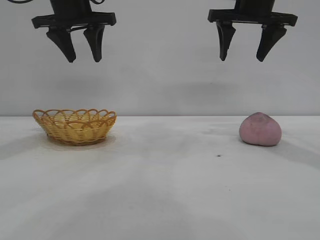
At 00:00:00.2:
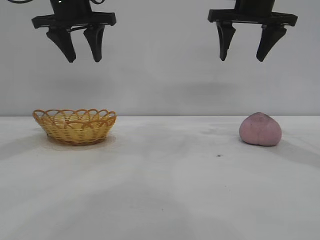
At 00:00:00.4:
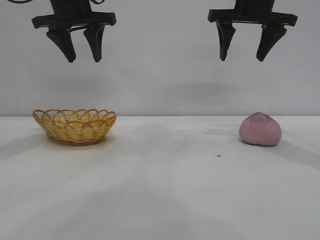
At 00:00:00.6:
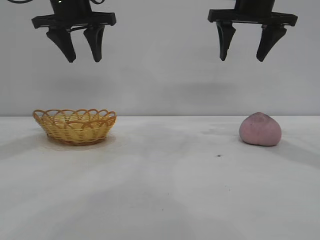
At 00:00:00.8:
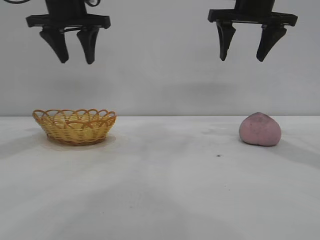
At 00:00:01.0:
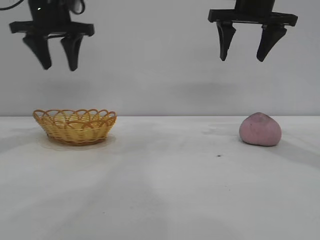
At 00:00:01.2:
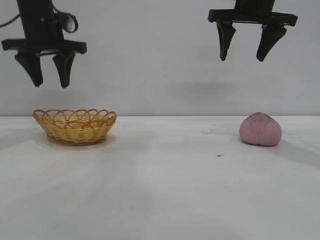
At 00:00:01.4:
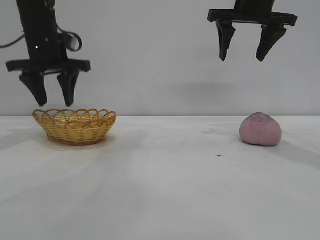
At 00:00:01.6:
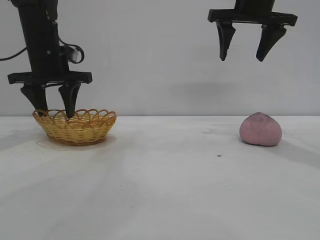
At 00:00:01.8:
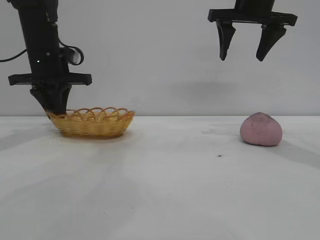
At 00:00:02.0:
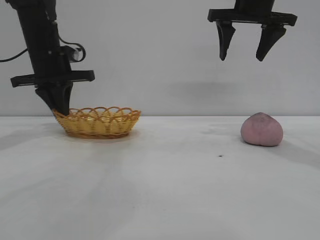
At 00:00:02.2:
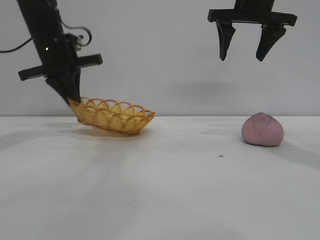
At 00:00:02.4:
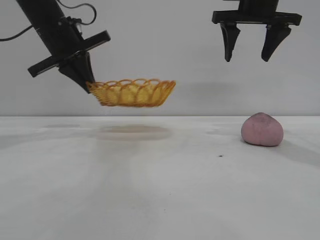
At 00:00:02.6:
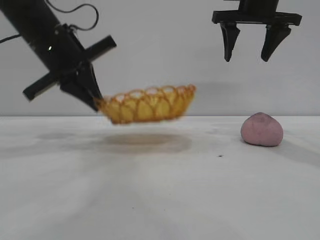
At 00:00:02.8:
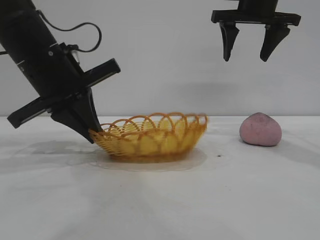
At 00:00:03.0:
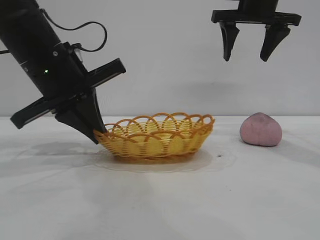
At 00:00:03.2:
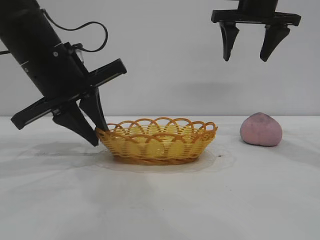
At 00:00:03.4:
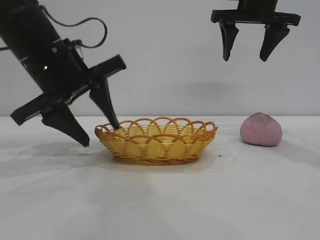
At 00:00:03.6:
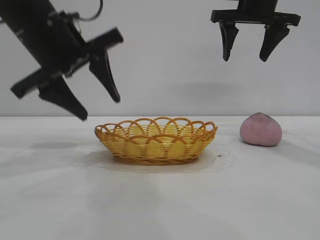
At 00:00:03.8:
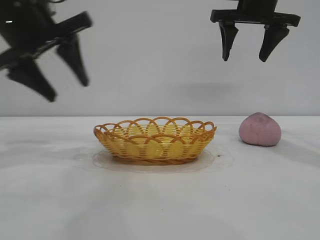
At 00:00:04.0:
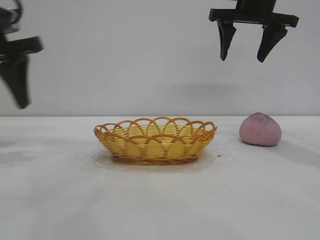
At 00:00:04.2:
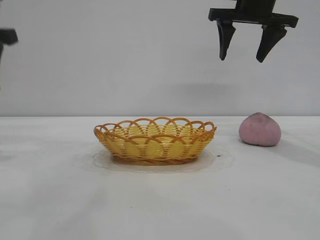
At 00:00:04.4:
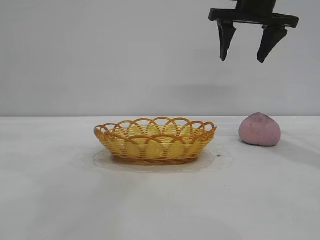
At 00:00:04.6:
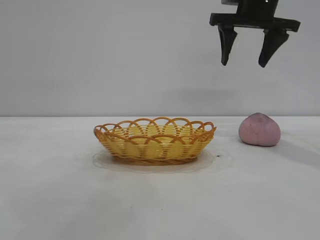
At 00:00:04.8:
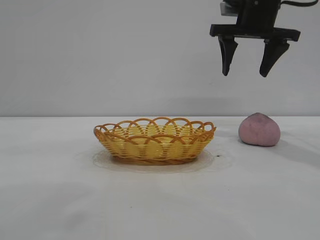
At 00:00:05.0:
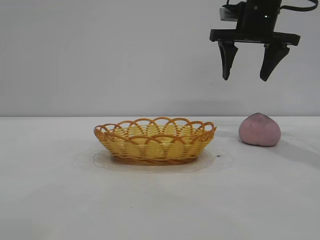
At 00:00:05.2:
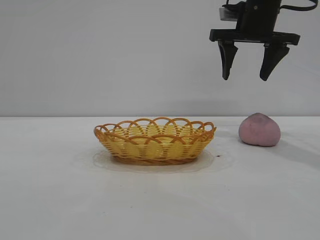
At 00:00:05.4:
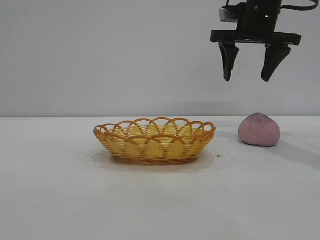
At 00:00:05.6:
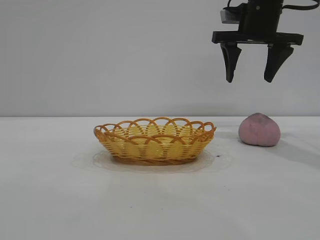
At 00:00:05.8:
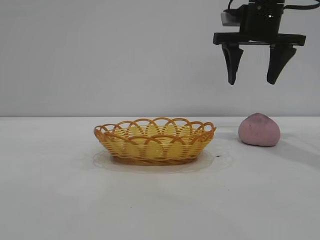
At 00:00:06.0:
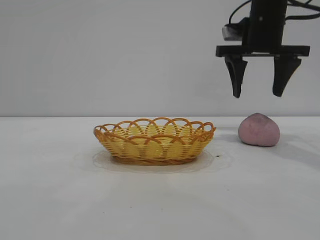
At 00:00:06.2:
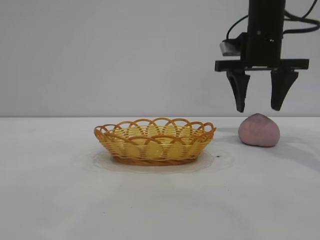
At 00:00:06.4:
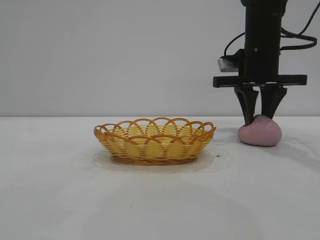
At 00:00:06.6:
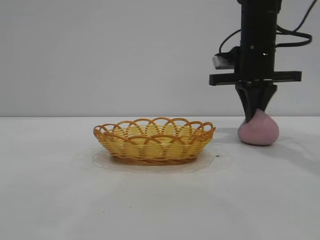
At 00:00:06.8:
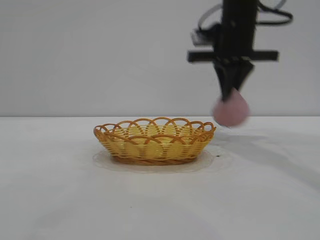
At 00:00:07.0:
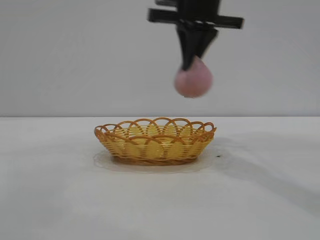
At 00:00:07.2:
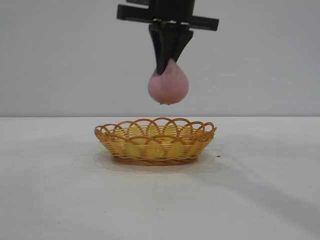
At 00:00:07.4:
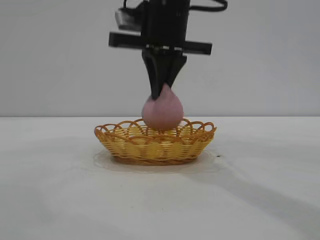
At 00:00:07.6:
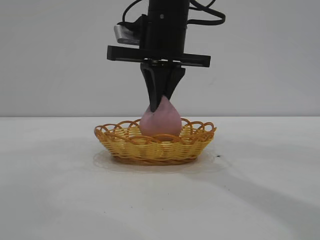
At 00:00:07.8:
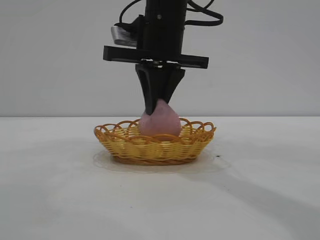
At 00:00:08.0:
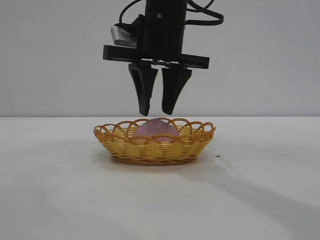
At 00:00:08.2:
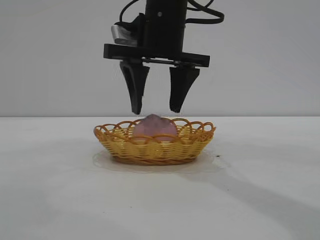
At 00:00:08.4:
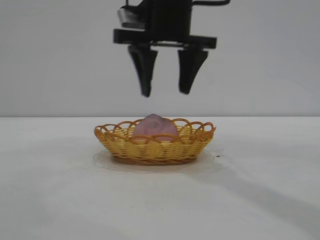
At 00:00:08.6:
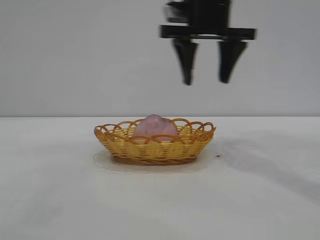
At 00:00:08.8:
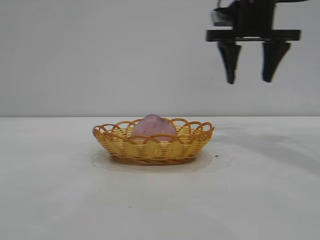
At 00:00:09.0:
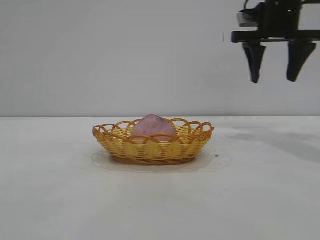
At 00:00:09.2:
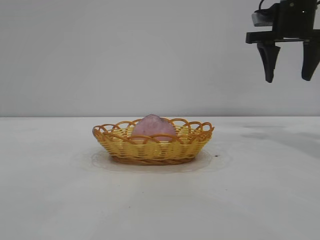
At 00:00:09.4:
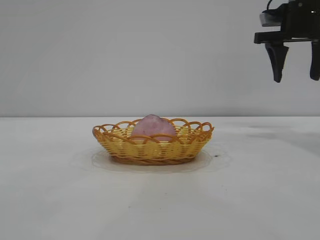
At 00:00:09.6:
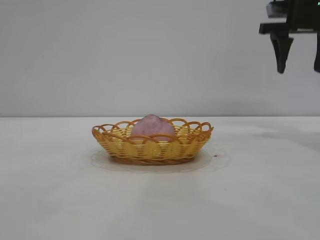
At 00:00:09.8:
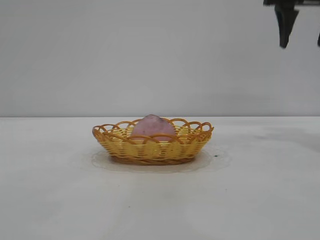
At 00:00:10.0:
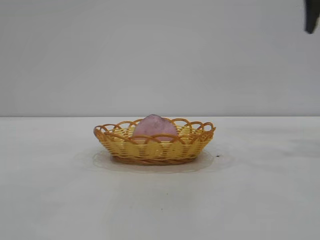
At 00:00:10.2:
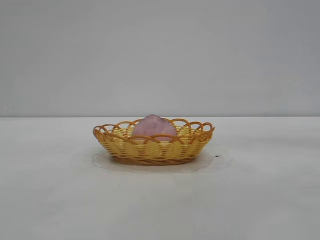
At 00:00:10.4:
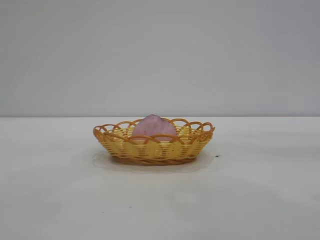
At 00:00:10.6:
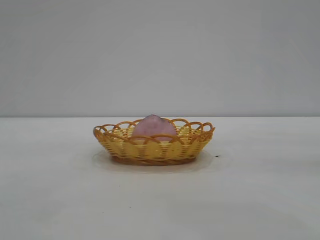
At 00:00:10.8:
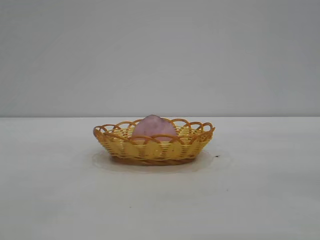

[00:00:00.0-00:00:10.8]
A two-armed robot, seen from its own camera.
Task of the whole recording: pick up the peach and put it into the basket.
Step, 00:00:00.0 to 00:00:03.6: Move the basket to the center of view.
Step, 00:00:03.8 to 00:00:06.8: Pick up the peach.
Step, 00:00:07.0 to 00:00:08.6: place the peach into the basket.
